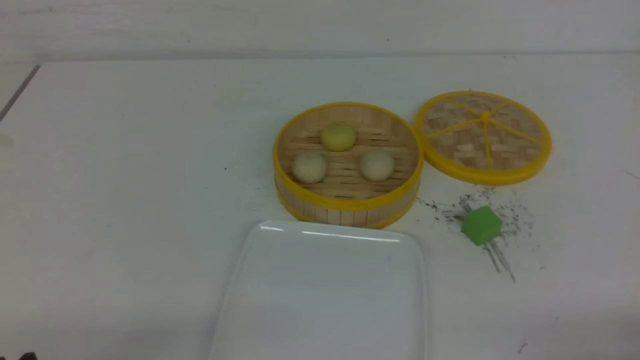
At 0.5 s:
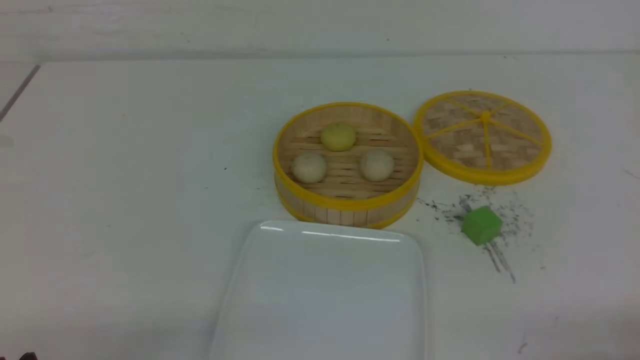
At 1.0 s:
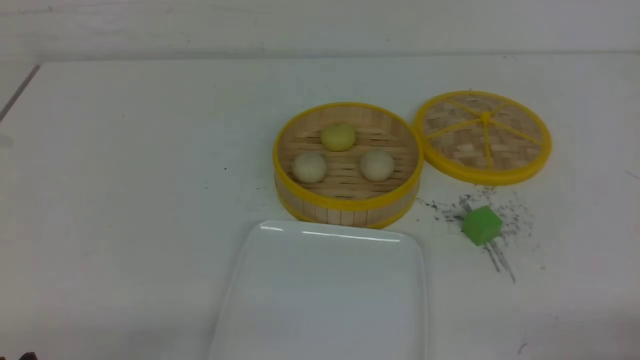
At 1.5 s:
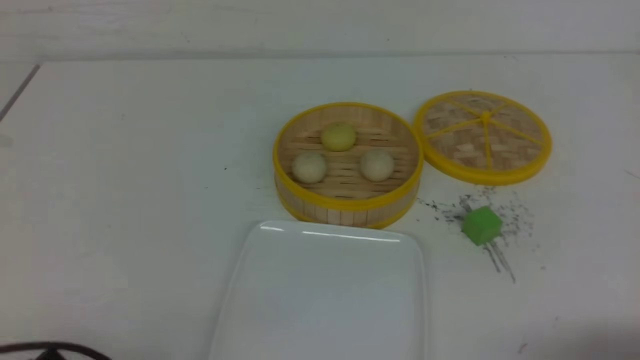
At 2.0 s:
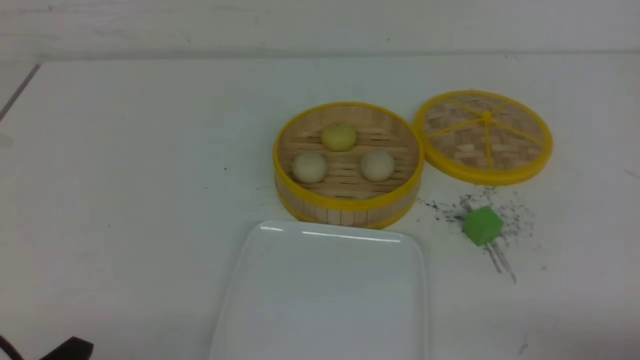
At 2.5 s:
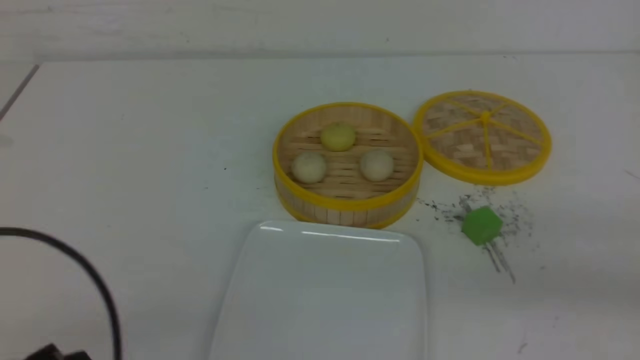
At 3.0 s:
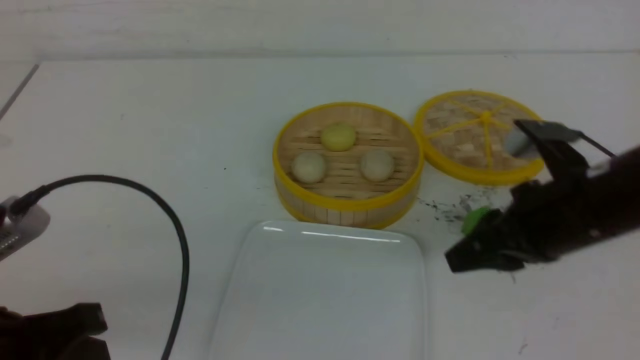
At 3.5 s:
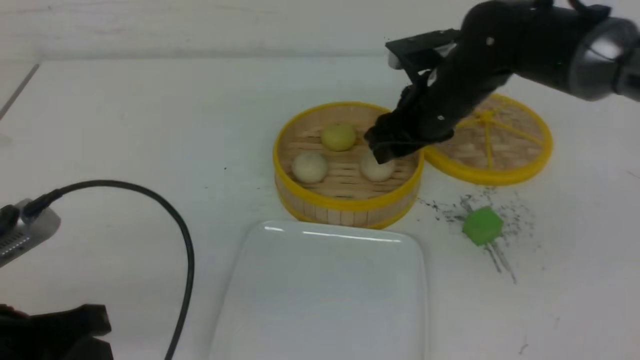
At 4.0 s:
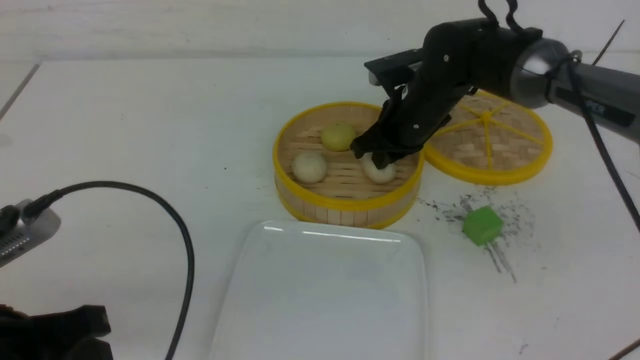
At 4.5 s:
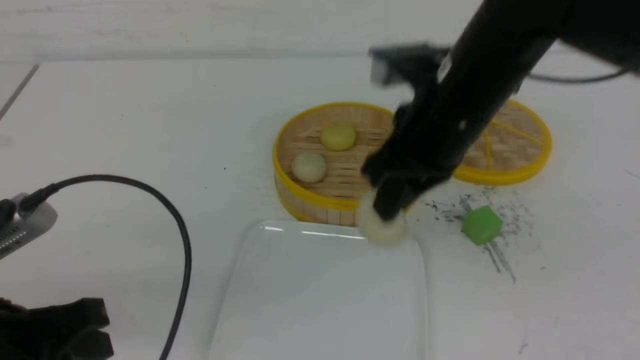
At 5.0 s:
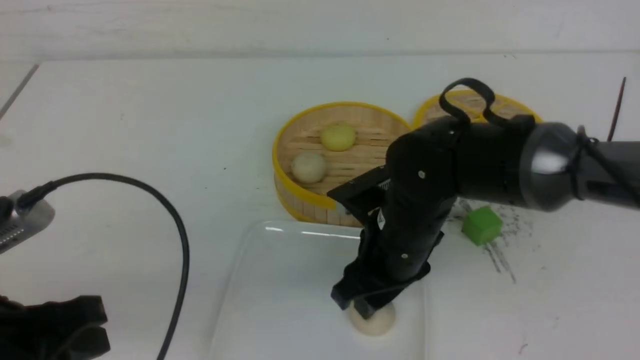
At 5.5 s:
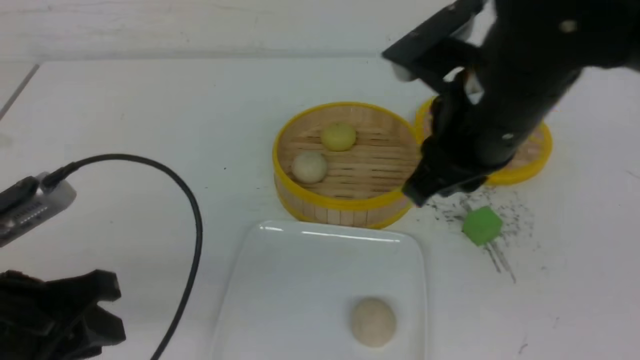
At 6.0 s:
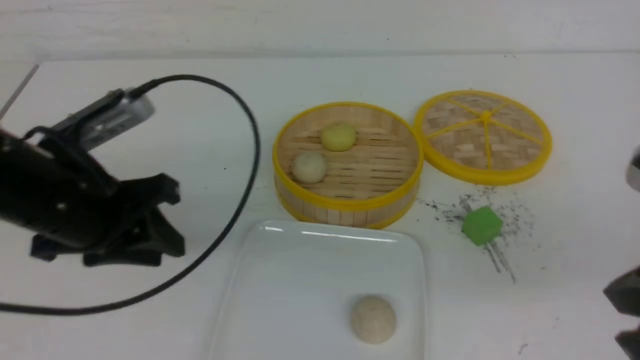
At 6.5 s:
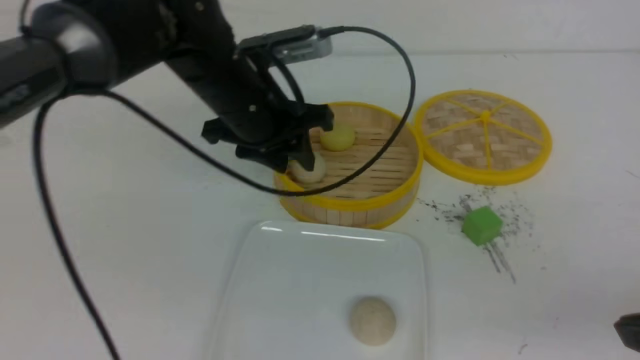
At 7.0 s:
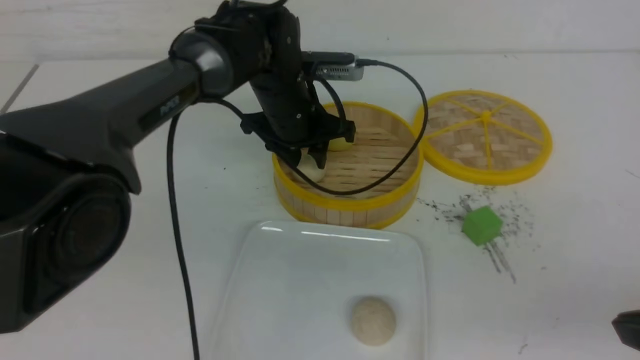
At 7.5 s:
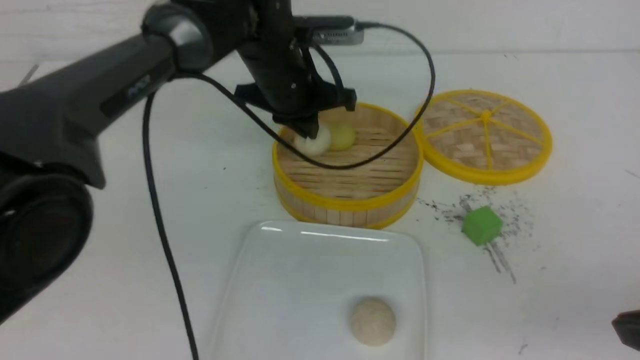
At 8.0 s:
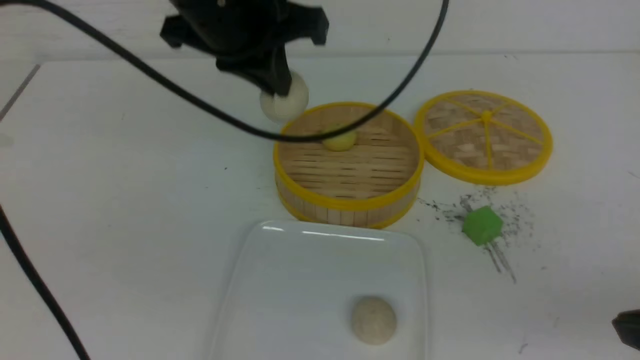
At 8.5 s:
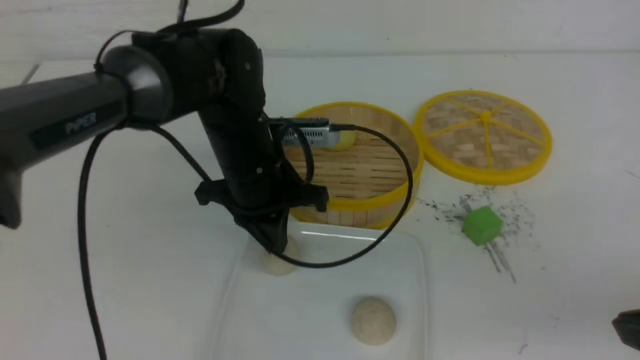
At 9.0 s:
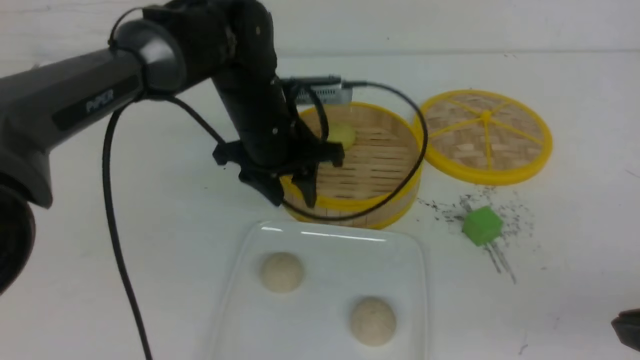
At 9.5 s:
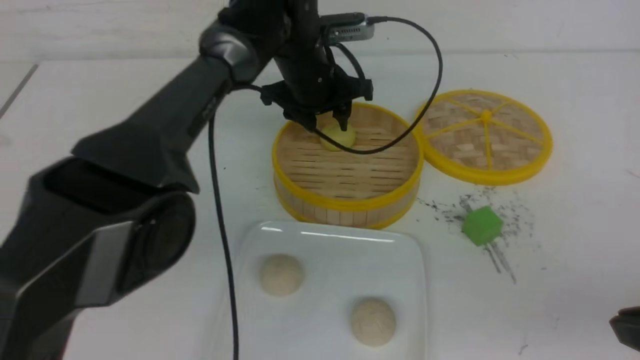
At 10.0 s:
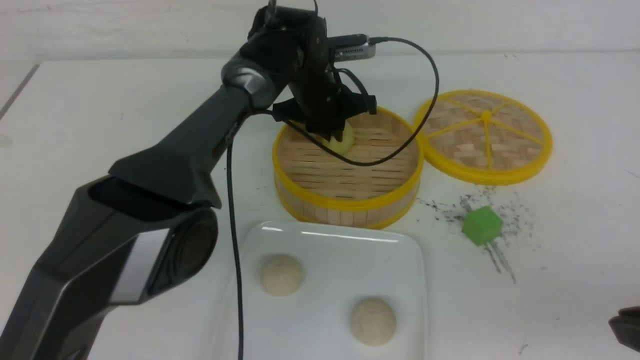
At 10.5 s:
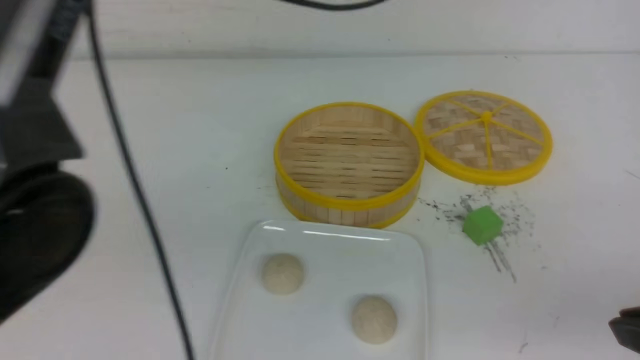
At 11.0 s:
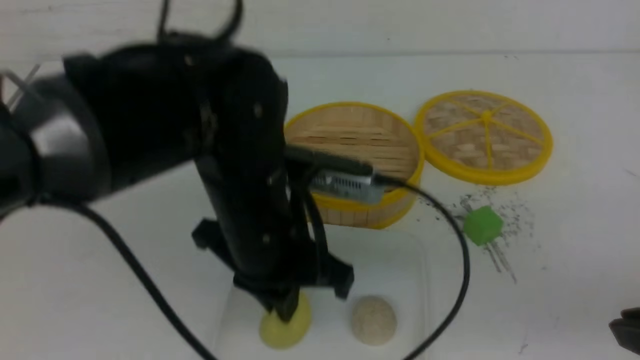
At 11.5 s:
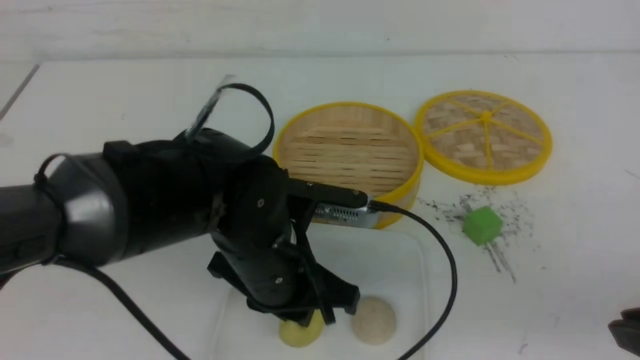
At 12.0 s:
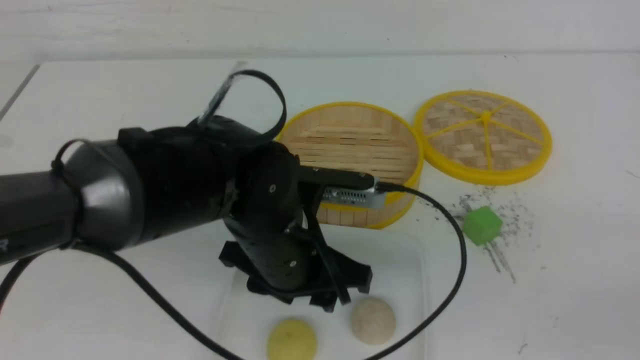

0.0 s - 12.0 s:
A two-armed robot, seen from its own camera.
Step, 0.0 s - 4.0 s: use the right arm to grab the steamed stuffed bun that is closest to it.
Step, 5.0 s - 7.0 s: use the left arm to grab the steamed stuffed bun that is closest to it.
Step, 7.5 s - 8.5 s: use the left arm to put the steamed stuffed bun into the plate.
Step, 9.0 s - 10.0 s: use the left arm to grab the steamed stuffed bun that is closest to it.
Step, 10.5 s - 11.5 s: use the left arm to put the steamed stuffed bun into the plate.
2.0 s - 4.0 s: The right gripper shifts some 40 cm forward and to the left, and opens, then closes once more. The left gripper heads upward and forward, covering about 10 cm.
4.0 s - 6.0 s: The right gripper heads backward, covering roughly 30 cm, and opens, then closes once more; the left gripper travels forward by approximately 15 cm.
6.0 s - 8.0 s: The left gripper is displaced to the right, forward and upward by roughly 15 cm, and closes. The right gripper shifts by roughly 5 cm.
8.0 s - 10.0 s: The left gripper goes roughly 20 cm forward, downward and to the right, and opens, then closes again.
10.0 s - 12.0 s: The right gripper travels backward and to the right by approximately 10 cm. The left gripper heads backward, covering about 25 cm, and opens.

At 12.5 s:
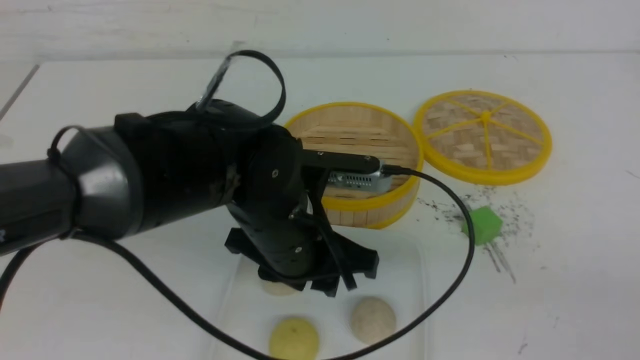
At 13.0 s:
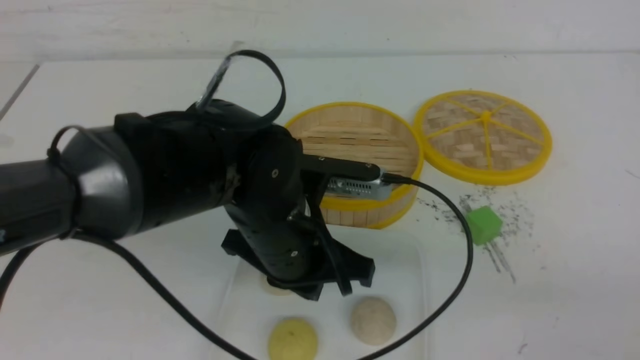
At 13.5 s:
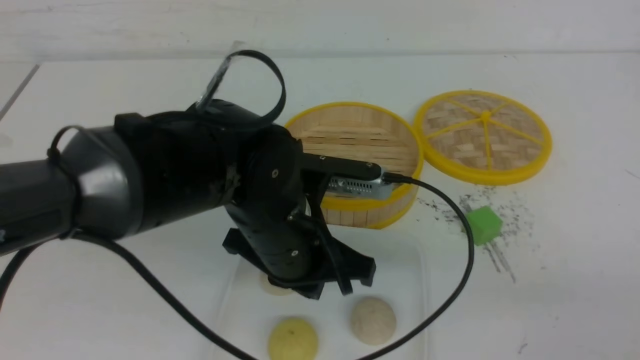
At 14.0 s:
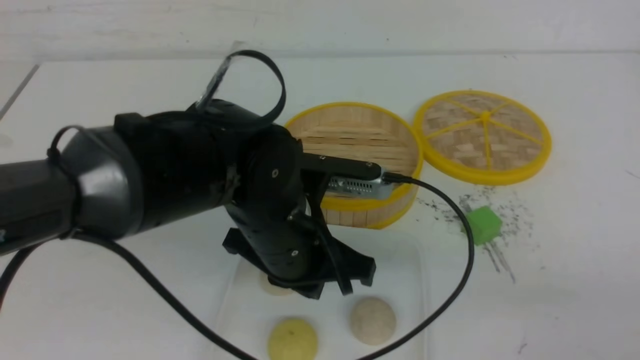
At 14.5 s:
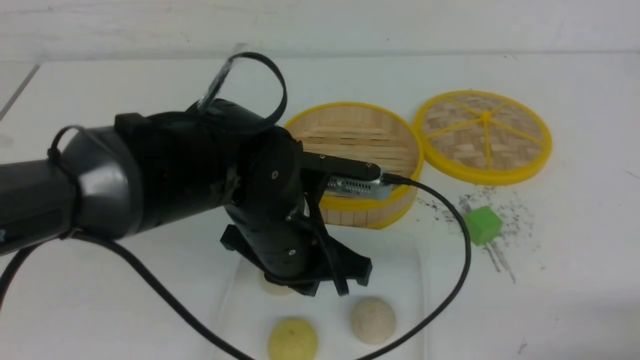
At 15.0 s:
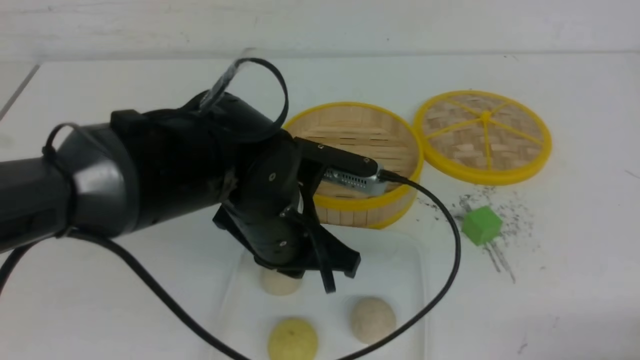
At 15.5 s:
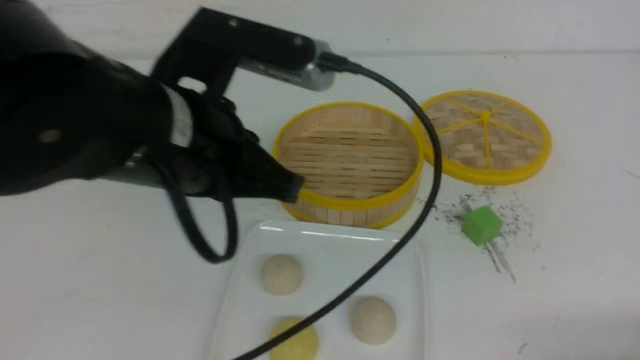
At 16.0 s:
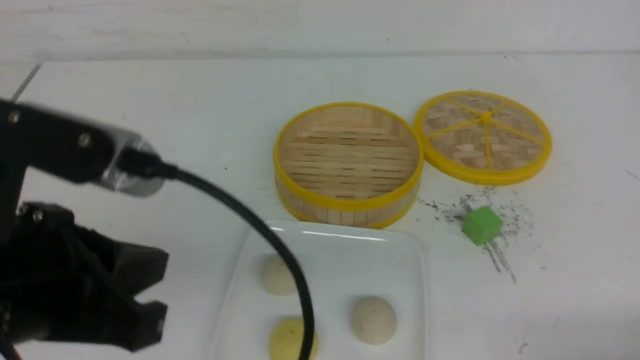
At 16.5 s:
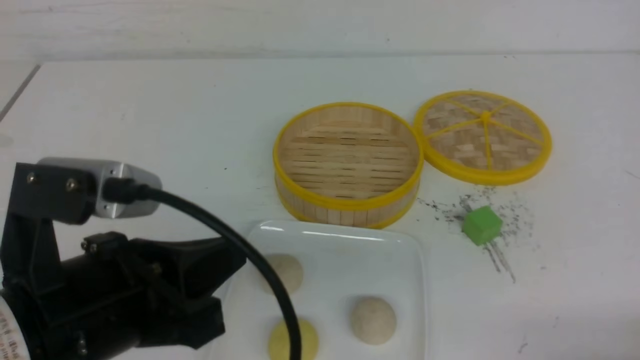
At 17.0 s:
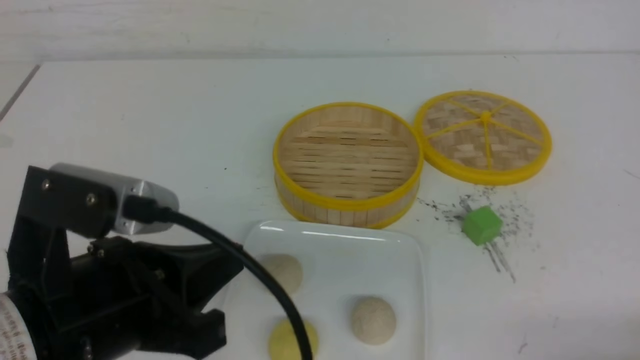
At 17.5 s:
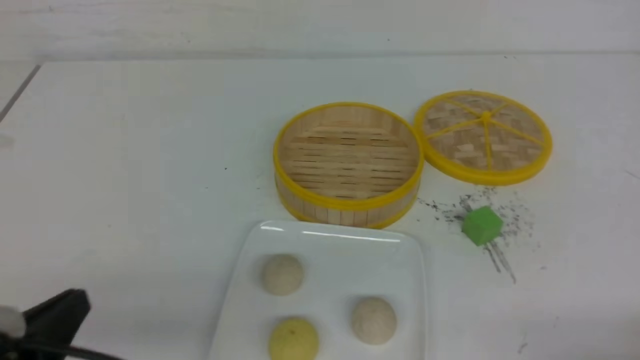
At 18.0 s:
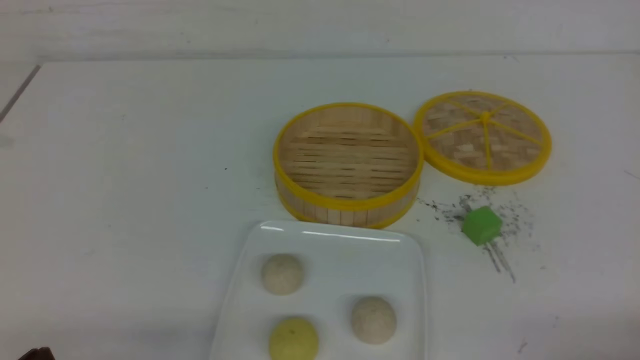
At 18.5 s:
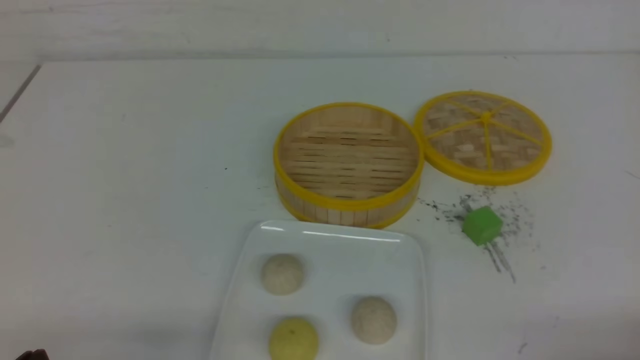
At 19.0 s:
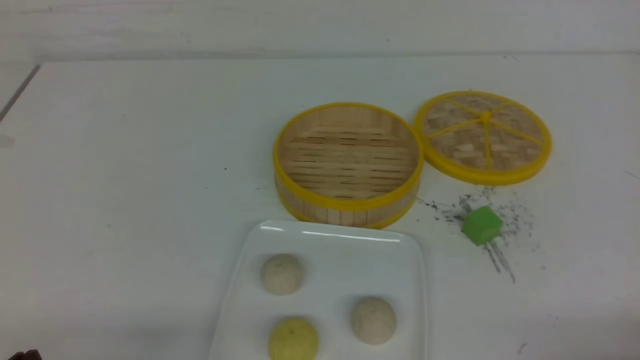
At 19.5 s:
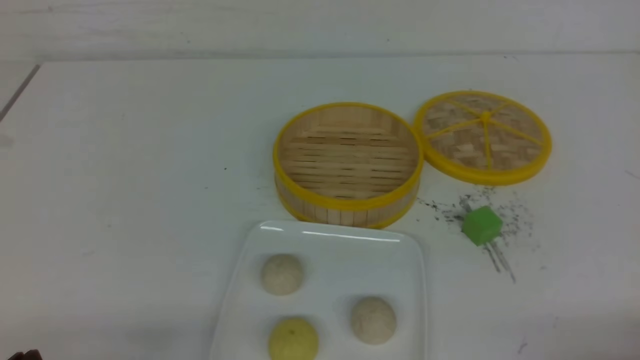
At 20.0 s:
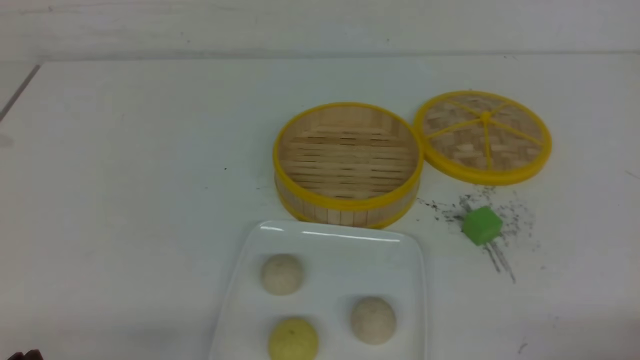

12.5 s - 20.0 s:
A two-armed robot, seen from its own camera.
12.5 s - 14.5 s: The right gripper heads downward, covering approximately 10 cm, while the left gripper closes.
14.5 s - 16.5 s: The left gripper heads backward, to the left and upward, covering about 20 cm.
16.5 s - 18.0 s: The left gripper is displaced downward, to the left and backward by approximately 20 cm.
18.0 s - 20.0 s: Both grippers stay about where they are.
